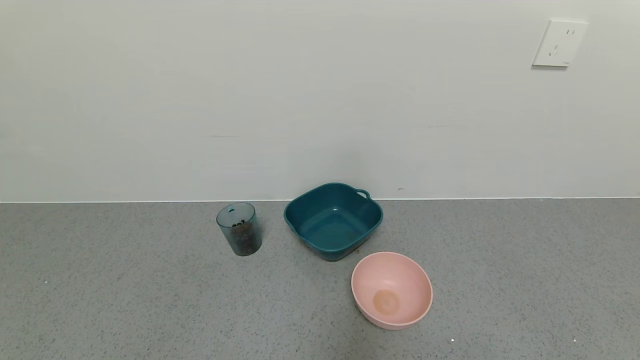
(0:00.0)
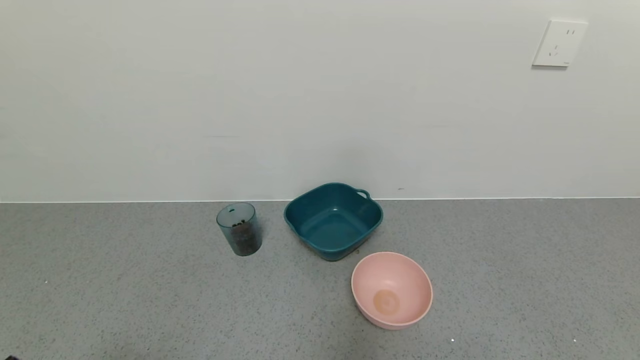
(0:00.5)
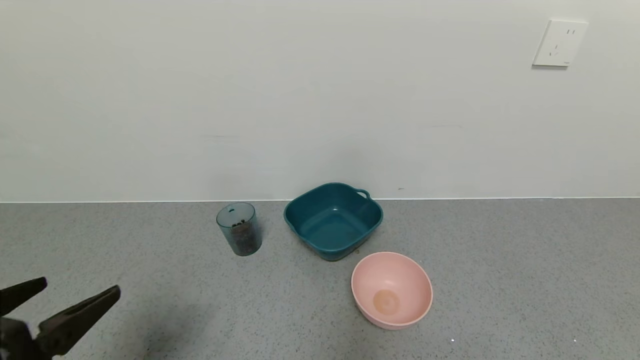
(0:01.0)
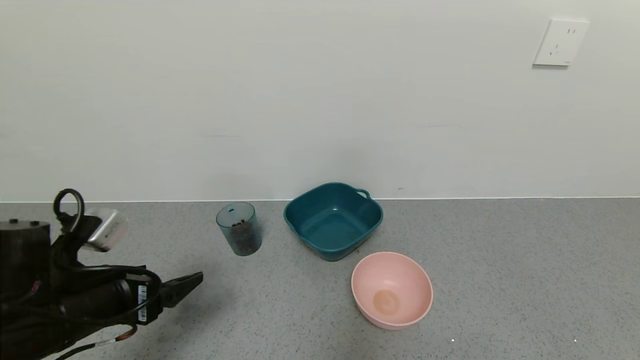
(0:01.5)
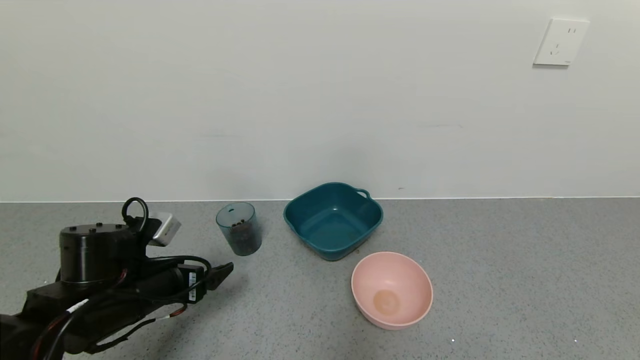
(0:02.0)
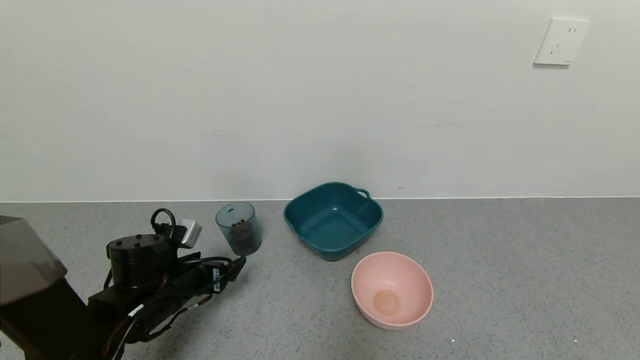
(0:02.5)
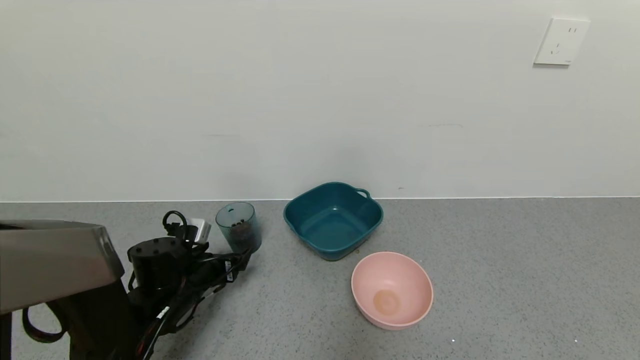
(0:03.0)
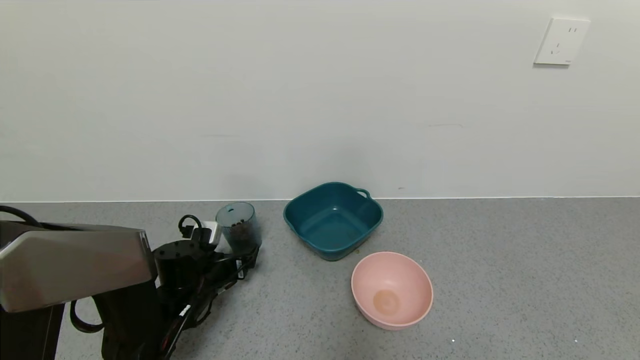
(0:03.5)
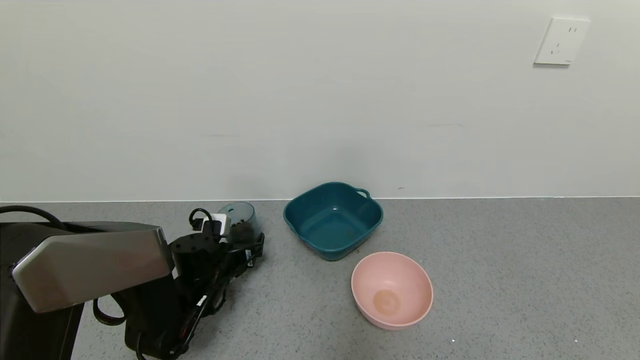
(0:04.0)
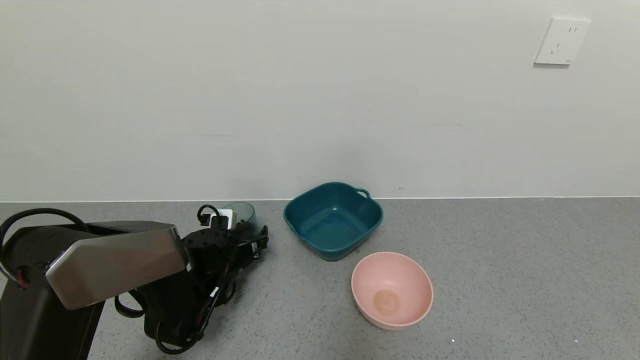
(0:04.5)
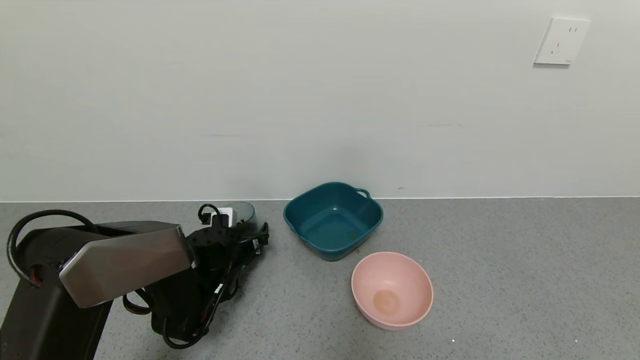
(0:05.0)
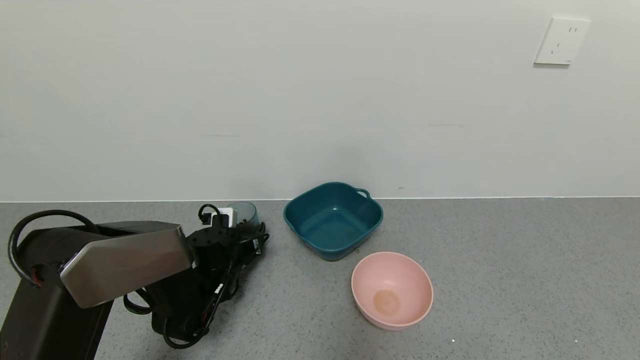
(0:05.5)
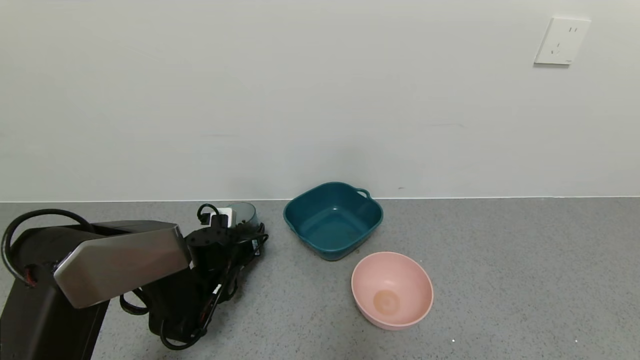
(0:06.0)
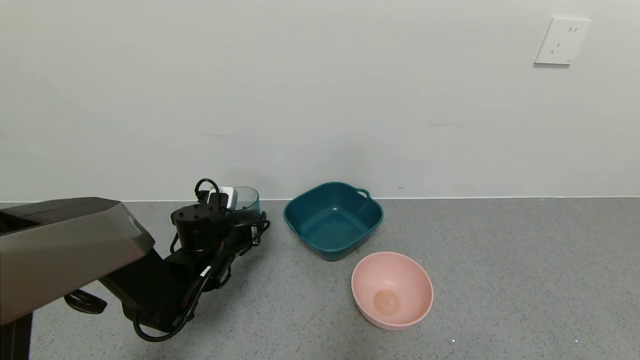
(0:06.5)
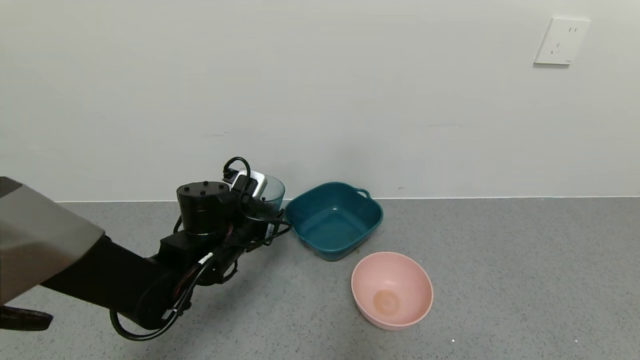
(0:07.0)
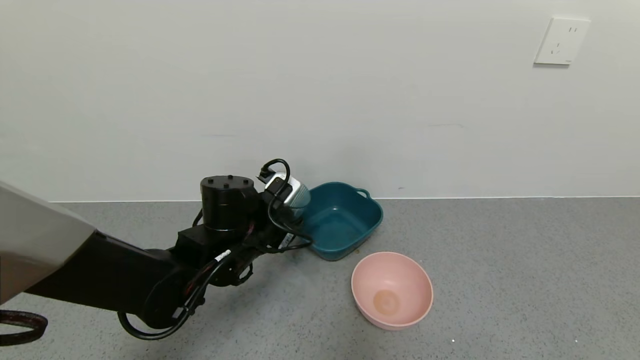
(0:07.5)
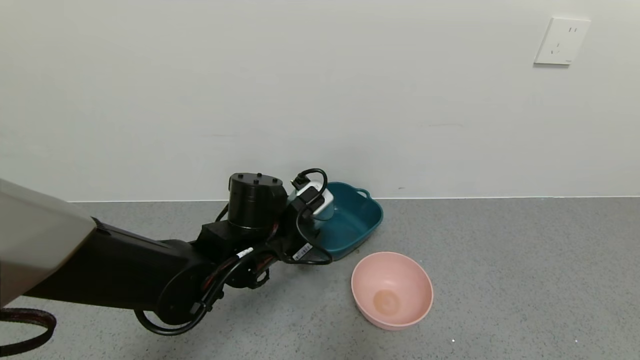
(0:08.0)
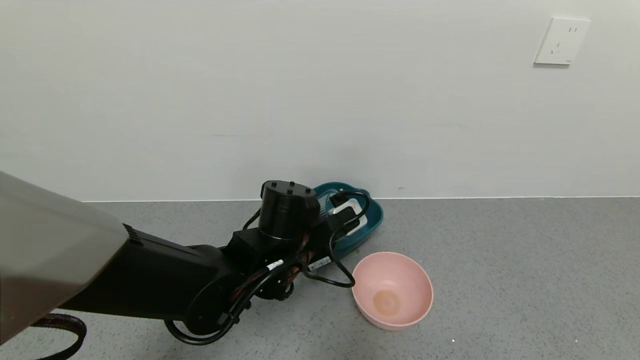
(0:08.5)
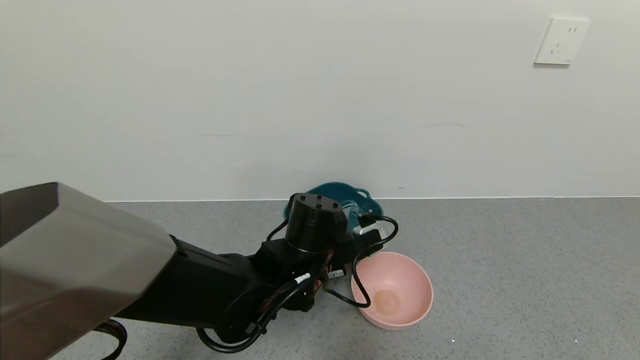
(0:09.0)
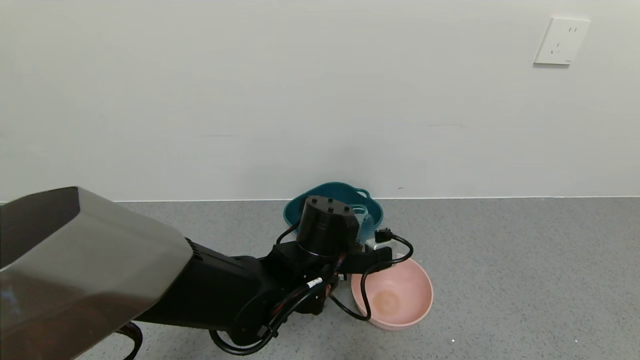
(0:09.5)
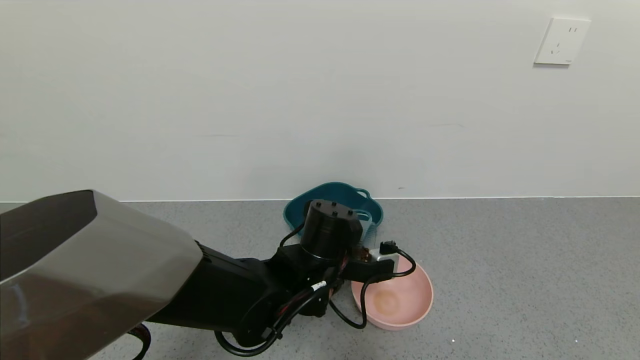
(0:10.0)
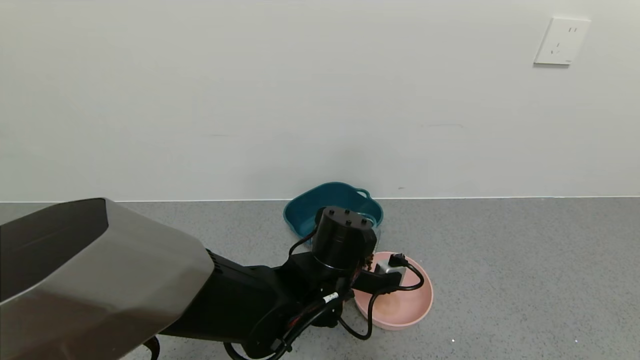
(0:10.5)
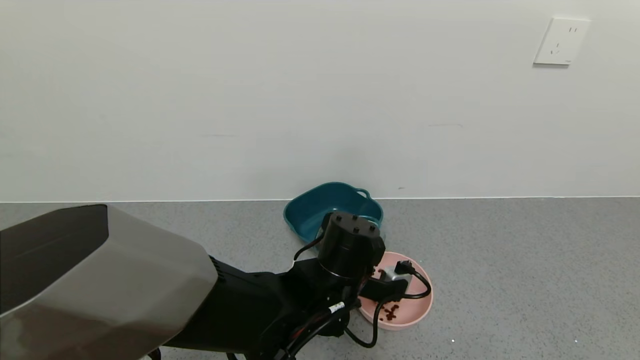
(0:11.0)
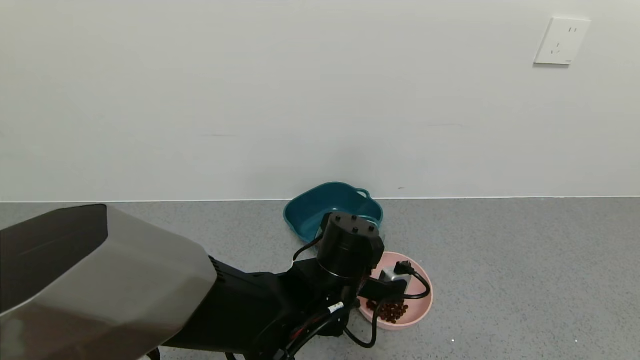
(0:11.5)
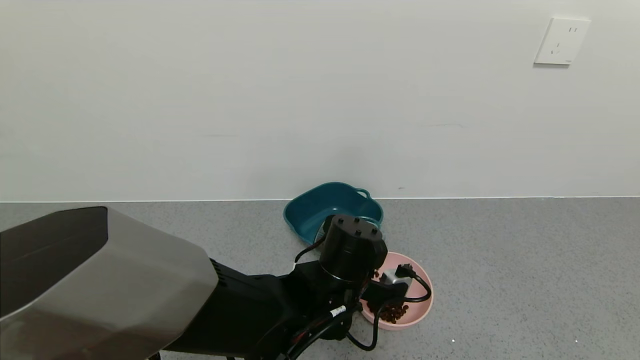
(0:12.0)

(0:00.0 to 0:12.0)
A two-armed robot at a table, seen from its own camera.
Task of the whole recording: use a gripper to pick up the cup and pour the solid into a bowl or tray.
Step, 0:00.0 - 0:05.5: Grasp the glass of coffee beans with the left gripper.
0:00.0 - 0:02.0: The left gripper travels forward by approximately 25 cm.
0:02.0 - 0:04.0: The left gripper heads forward and downward, covering approximately 15 cm.
0:04.0 - 0:06.0: The left gripper closes.
0:06.0 - 0:08.0: The left gripper goes roughly 20 cm upward, to the right and backward.
0:08.0 - 0:10.0: The left gripper goes some 10 cm to the right.
0:10.0 - 0:12.0: The grippers move only a little.

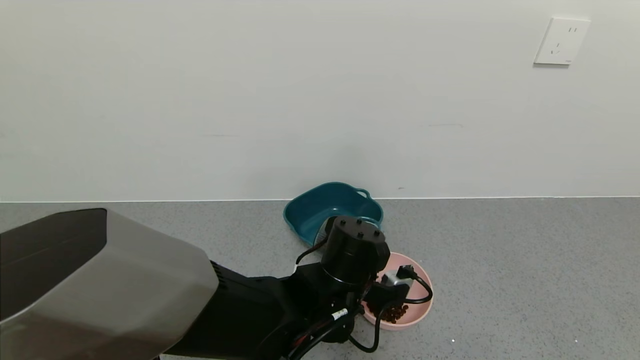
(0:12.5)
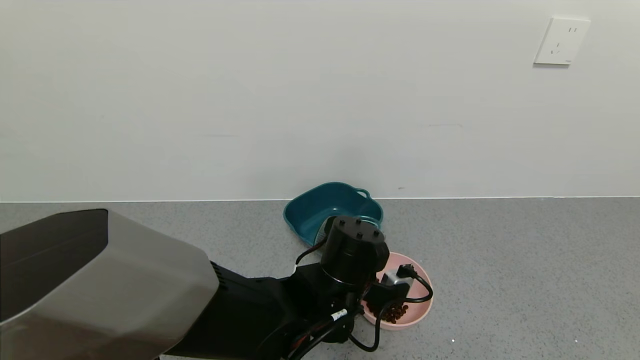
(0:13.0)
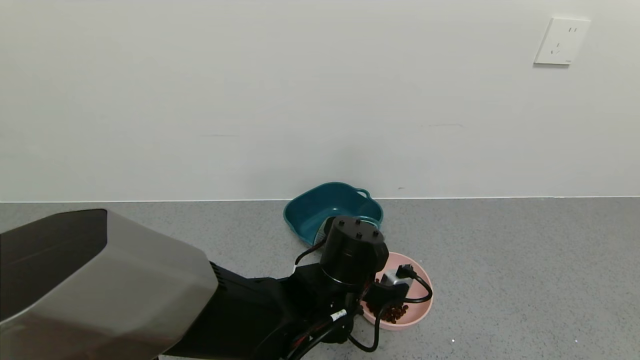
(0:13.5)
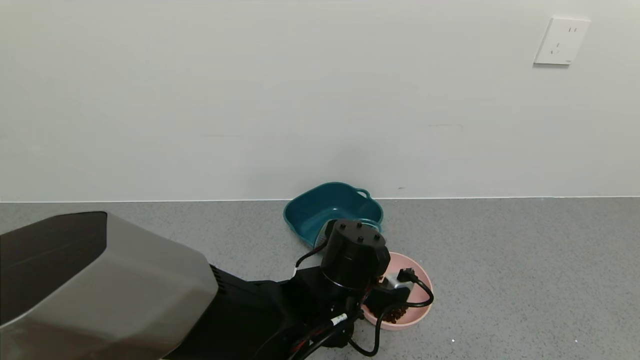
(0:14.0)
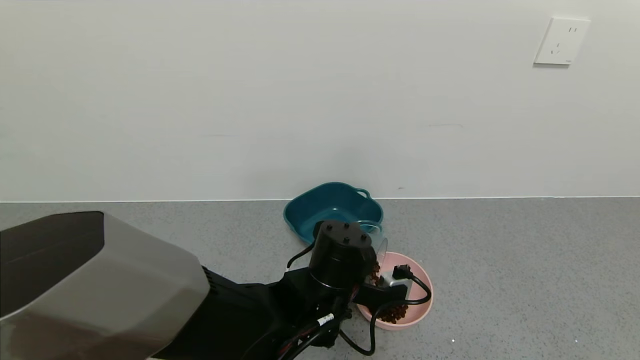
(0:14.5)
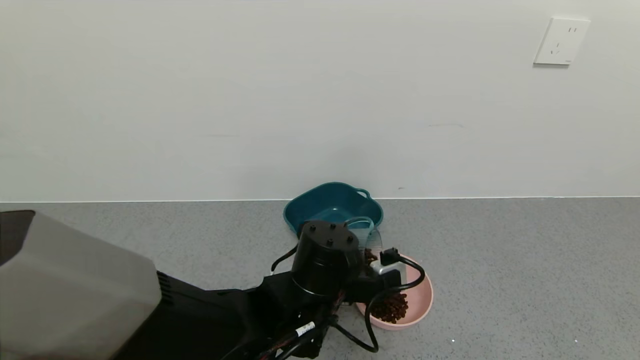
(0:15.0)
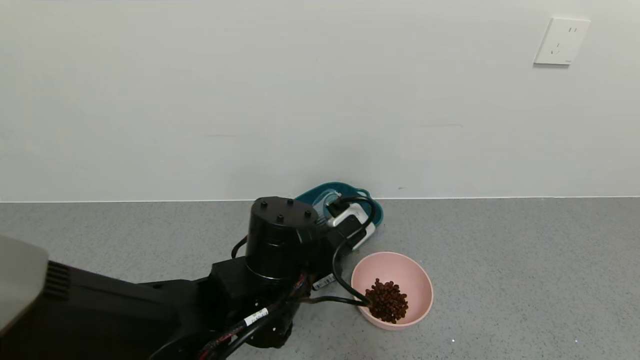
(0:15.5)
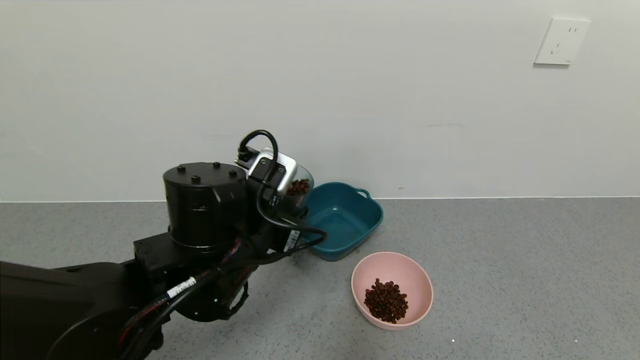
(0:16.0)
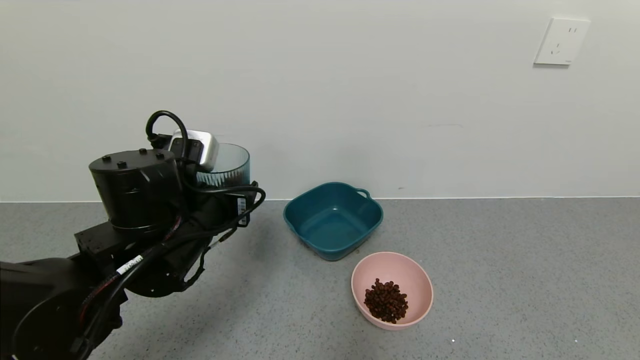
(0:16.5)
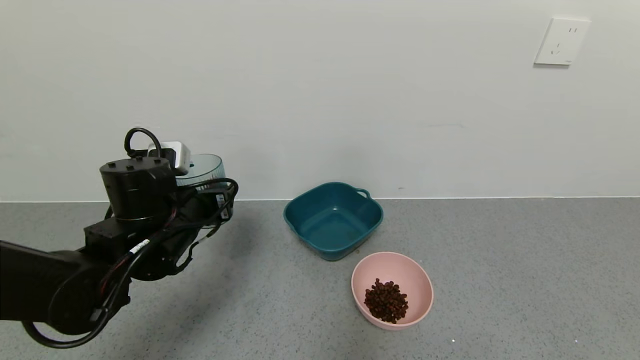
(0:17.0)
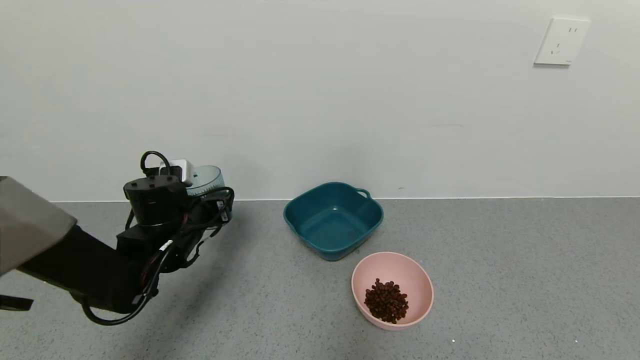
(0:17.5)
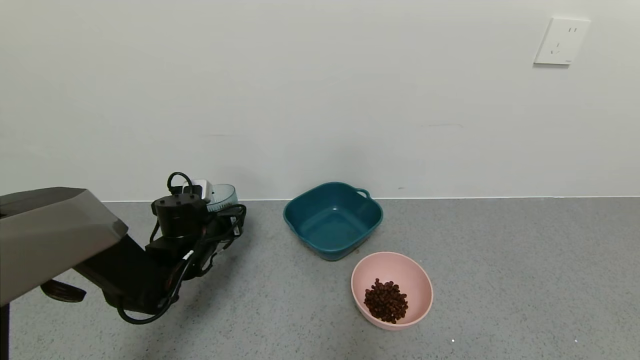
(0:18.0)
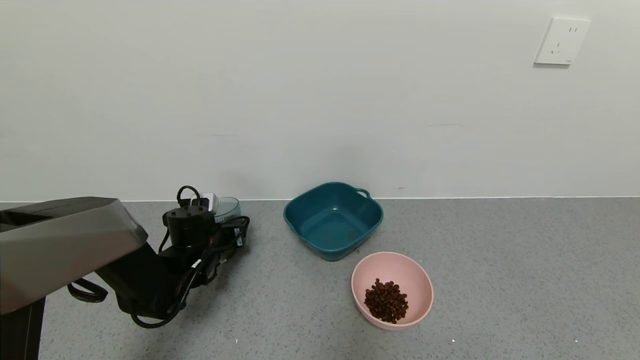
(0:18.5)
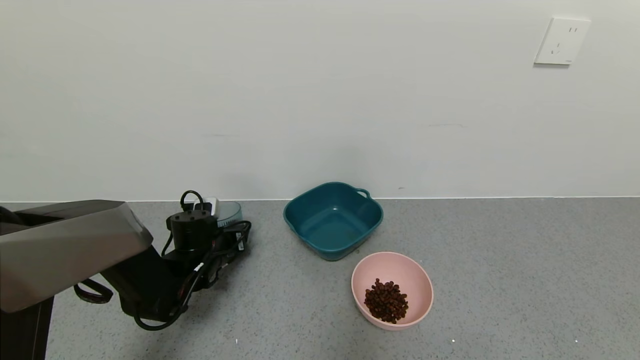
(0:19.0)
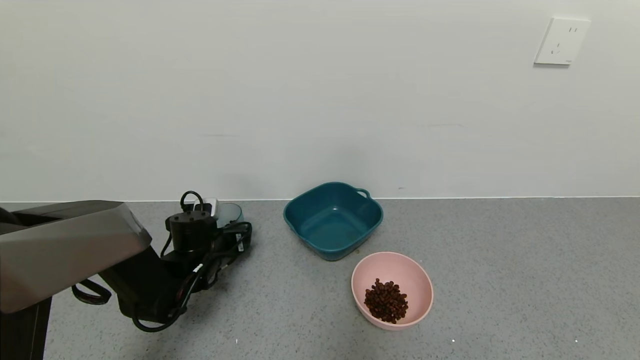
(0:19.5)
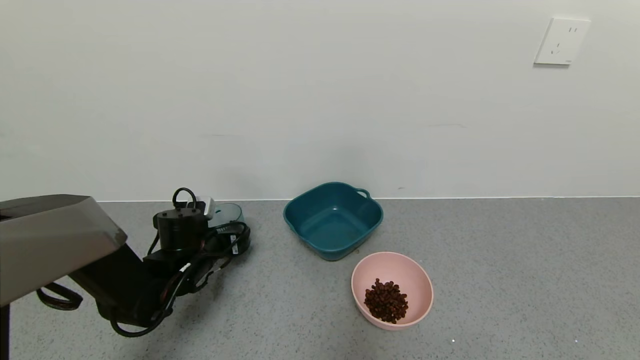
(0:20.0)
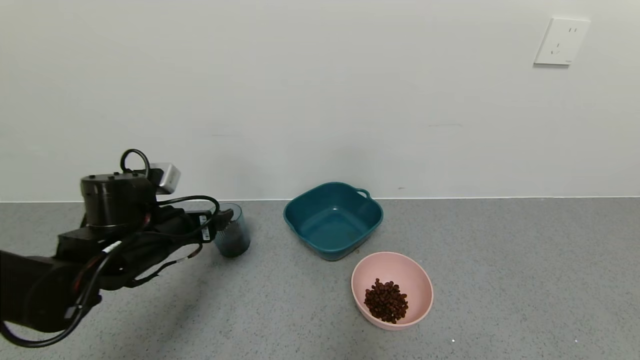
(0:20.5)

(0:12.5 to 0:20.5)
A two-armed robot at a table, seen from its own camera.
Task of the whole recording: use a gripper to pick up the cup and pour the solid into a bowl or tray.
Step, 0:12.5 - 0:15.0: Pour the coffee beans into the pink bowl with the left gripper.
Step, 0:15.5 - 0:20.0: Place the glass cup with the left gripper.
0:12.5 - 0:14.5: There are only small adjustments of the grippers.
0:14.5 - 0:16.5: The left gripper goes about 20 cm to the left and upward.
0:16.5 - 0:18.5: The left gripper goes some 20 cm downward, forward and to the left.
0:18.5 - 0:20.5: The left gripper heads upward and backward, covering roughly 15 cm, and opens.
